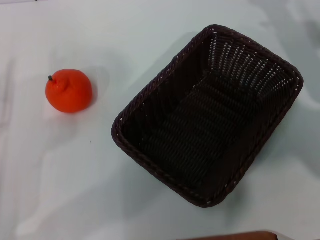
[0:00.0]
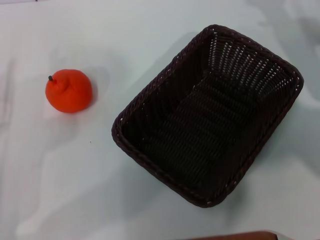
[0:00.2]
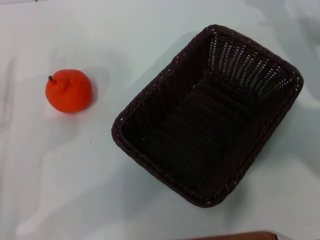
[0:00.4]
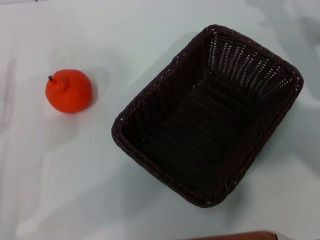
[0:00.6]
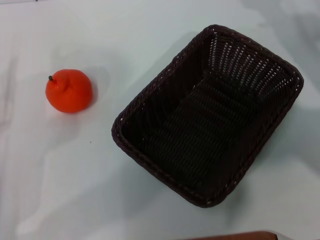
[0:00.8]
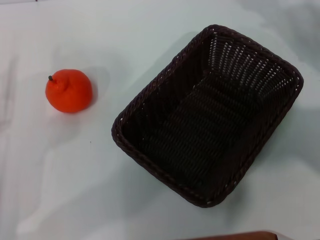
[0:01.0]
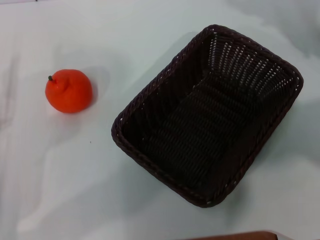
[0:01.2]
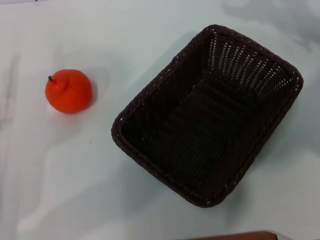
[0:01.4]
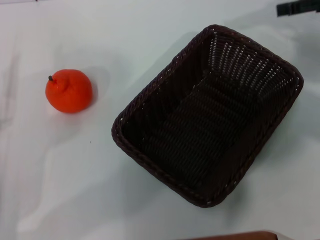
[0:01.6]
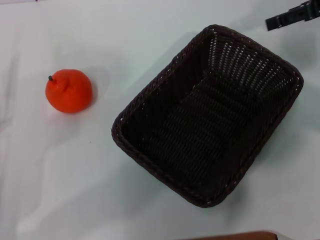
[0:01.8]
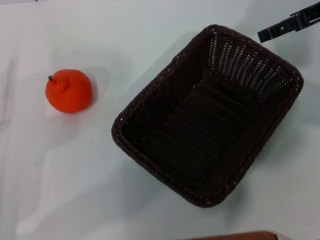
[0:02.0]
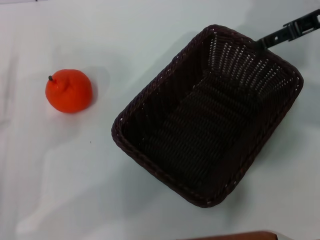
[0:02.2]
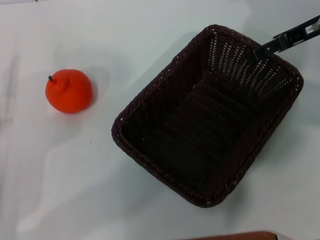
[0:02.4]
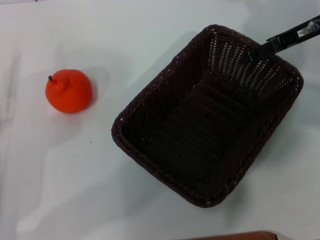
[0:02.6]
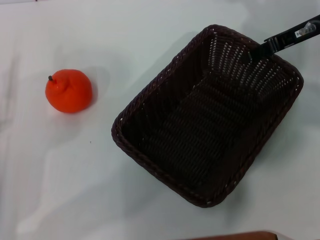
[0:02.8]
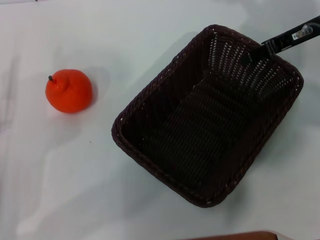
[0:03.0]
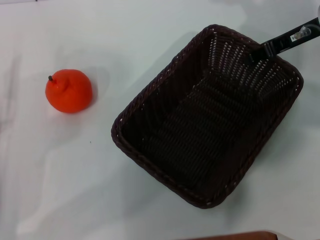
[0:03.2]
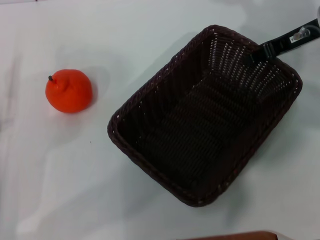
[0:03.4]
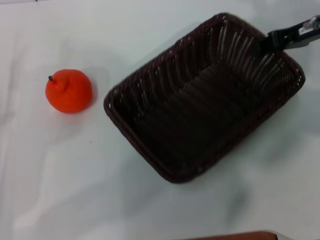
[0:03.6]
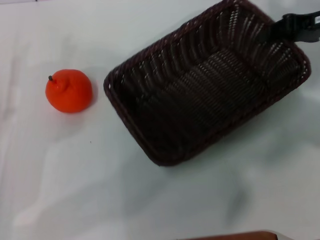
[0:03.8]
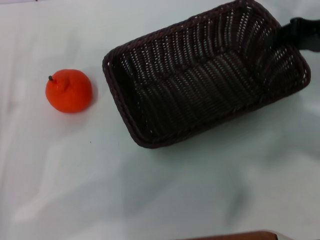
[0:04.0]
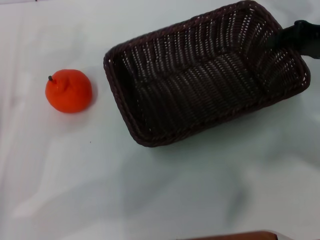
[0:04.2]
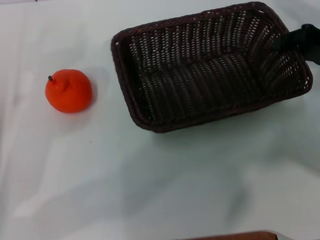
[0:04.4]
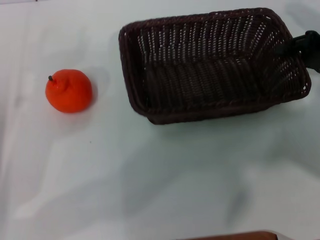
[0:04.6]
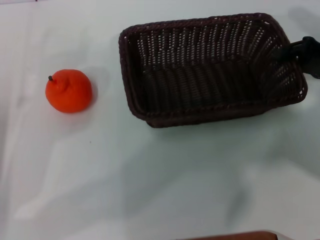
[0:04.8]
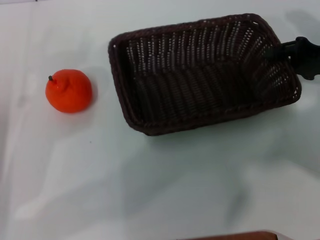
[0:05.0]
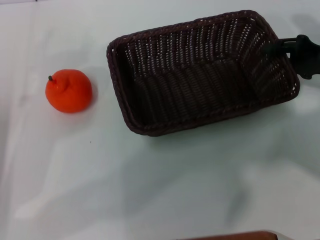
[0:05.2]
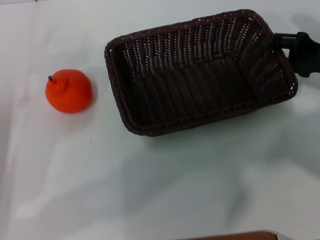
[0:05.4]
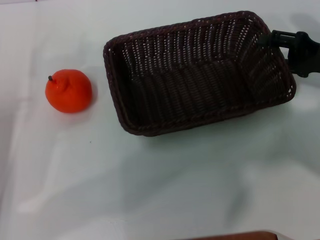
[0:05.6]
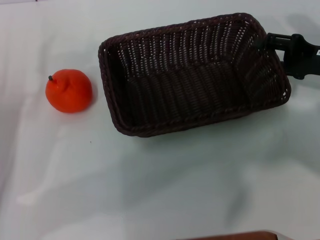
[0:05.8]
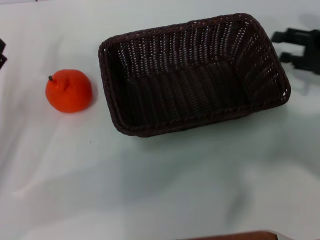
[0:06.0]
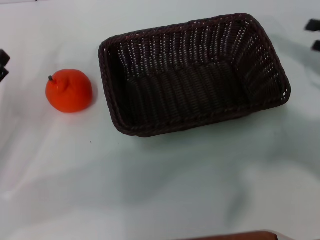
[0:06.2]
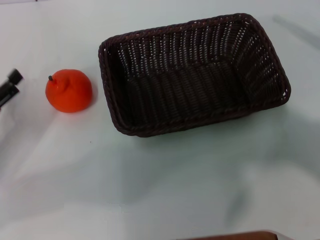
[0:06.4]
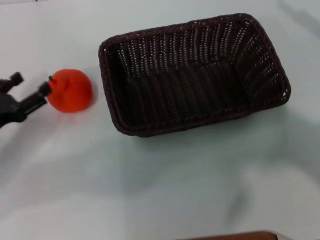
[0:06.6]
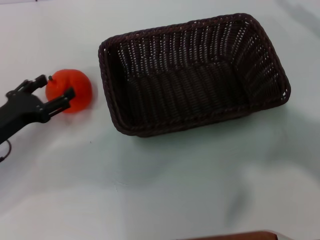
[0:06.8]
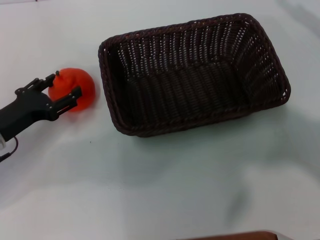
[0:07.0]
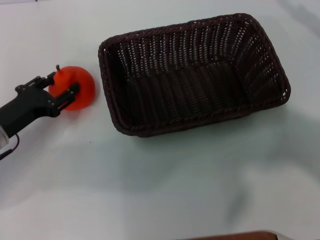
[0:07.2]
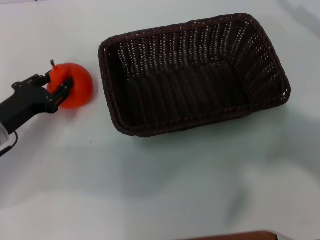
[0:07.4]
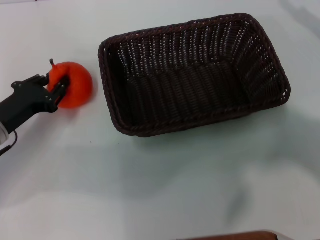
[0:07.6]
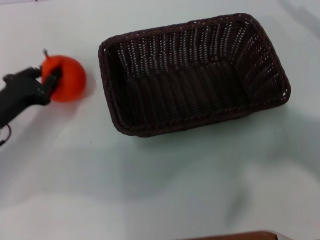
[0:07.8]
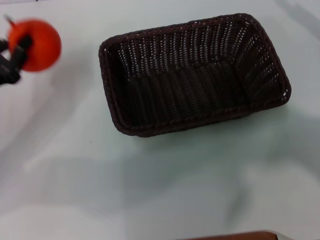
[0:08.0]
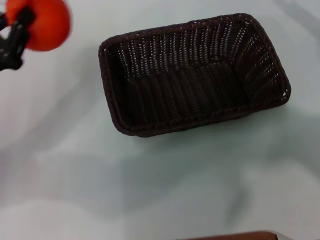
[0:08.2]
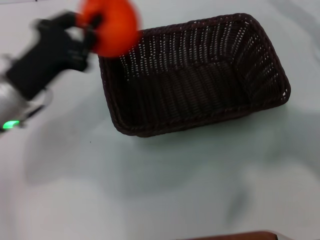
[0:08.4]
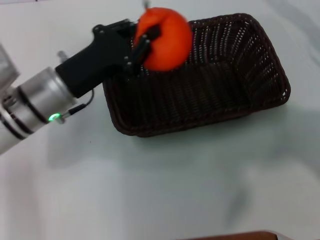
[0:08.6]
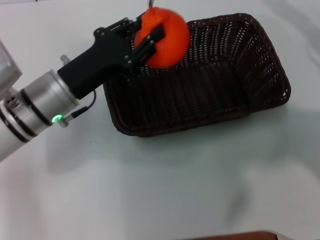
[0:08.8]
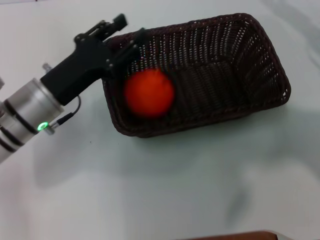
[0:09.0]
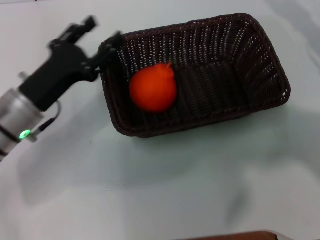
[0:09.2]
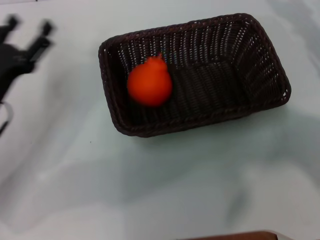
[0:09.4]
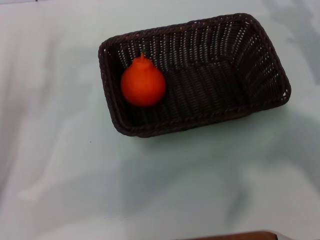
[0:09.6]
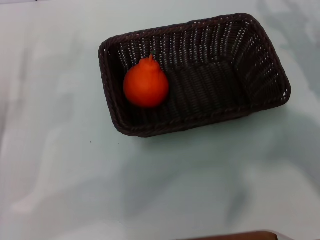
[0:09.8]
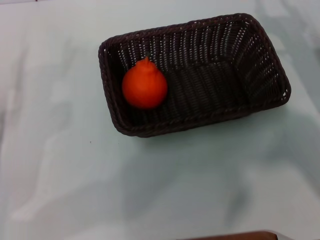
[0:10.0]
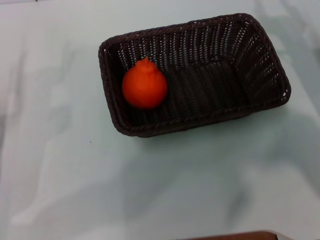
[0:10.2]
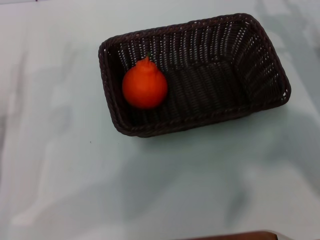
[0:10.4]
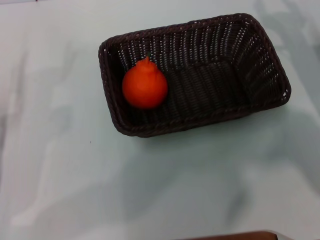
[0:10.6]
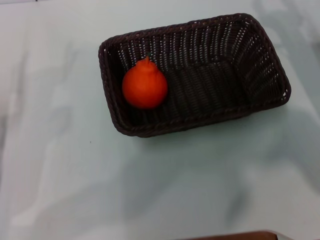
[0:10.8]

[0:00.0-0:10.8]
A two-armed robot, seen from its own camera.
Task of the whole recording: the right gripper pick up the black basket and place it horizontally in the middle of the table, the left gripper pick up the orange and place it into the black basket.
Step, 0:00.0 to 0:03.6: Pick up the dark basket with the right gripper.
Step, 0:03.8 to 0:06.0: Place the dark basket in the center of view with the right gripper.
Step, 0:06.2 to 0:07.8: Pick up the orange with the left gripper.
Step, 0:08.0 to 0:09.0: Place the orange into the dark basket with the left gripper.
0:00.0 to 0:01.6: The right gripper is displaced upward by about 10 cm.
0:01.6 to 0:03.0: The right gripper travels to the left and downward by some 10 cm.
0:03.0 to 0:04.6: The right gripper is displaced backward and to the right by about 10 cm, and closes up.
0:04.6 to 0:06.2: The right gripper changes place by about 5 cm, and opens its fingers.
0:06.2 to 0:07.8: The left gripper changes place by some 5 cm, and closes its fingers.
0:07.8 to 0:09.2: The left gripper moves to the right, approximately 5 cm, and opens its fingers.
0:09.2 to 0:10.8: The left gripper goes some 10 cm to the left and backward, and opens its fingers; the right gripper travels to the left and downward by approximately 10 cm.

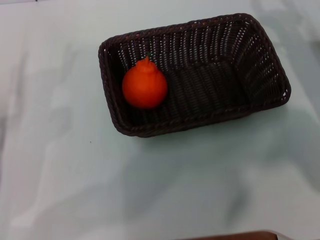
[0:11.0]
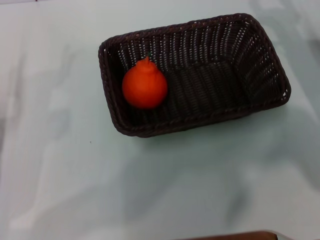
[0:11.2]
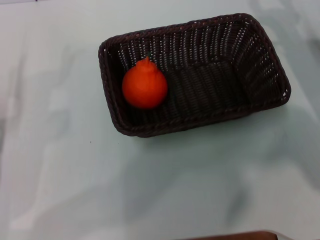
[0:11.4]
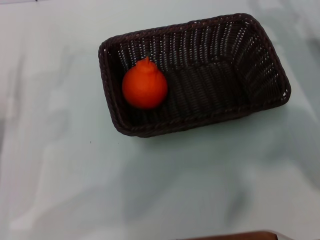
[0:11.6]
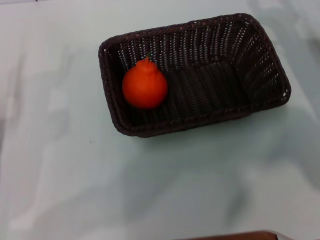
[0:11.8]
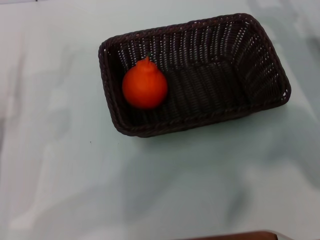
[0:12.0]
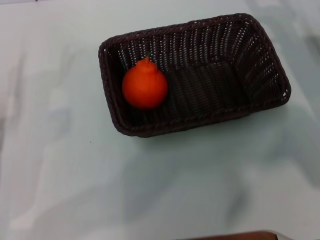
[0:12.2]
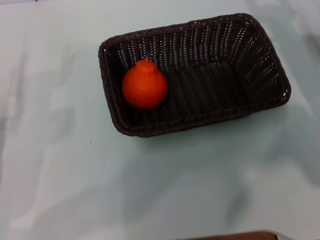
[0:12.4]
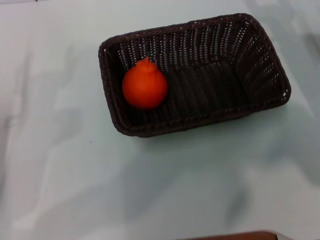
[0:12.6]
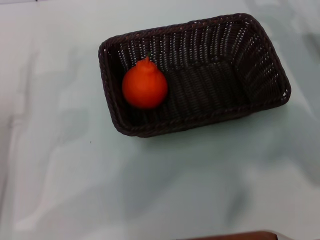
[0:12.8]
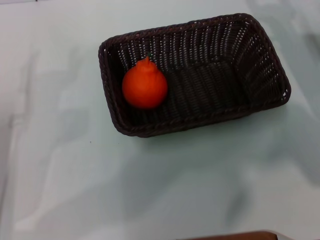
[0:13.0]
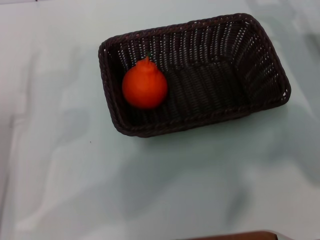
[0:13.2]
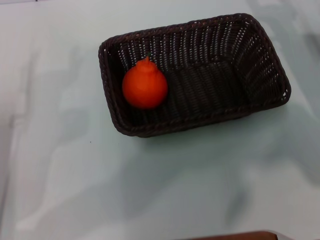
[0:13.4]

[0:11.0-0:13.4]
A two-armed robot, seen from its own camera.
Task of the whole recording: the right gripper pick up the black basket and place it horizontally in the middle of the table, the left gripper pick up the orange and place it into the black basket.
0:11.0 to 0:12.2: Both grippers stay about where they are.
0:12.2 to 0:13.4: The grippers stay close to where they were, moving slightly.
